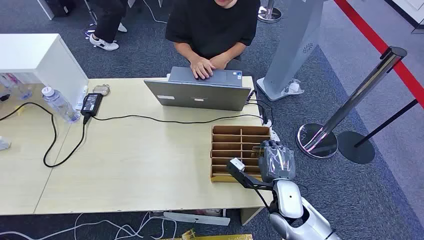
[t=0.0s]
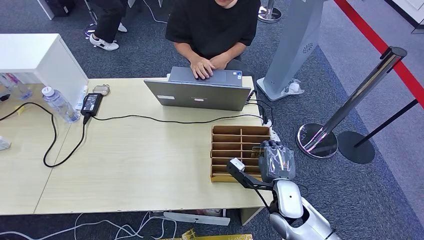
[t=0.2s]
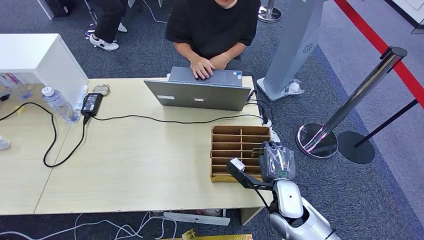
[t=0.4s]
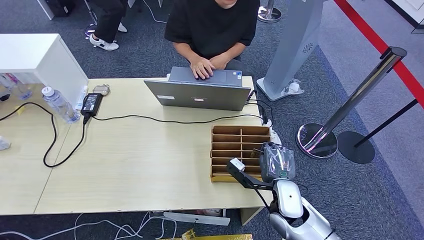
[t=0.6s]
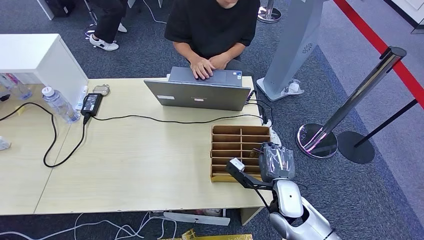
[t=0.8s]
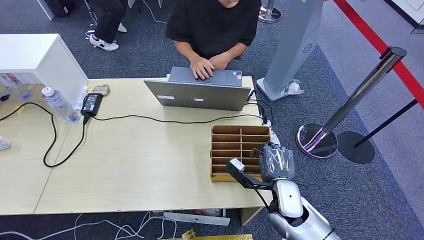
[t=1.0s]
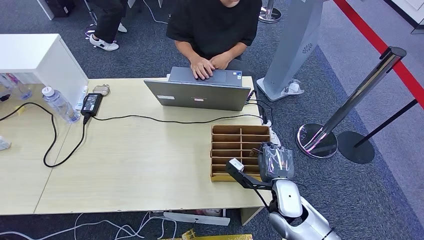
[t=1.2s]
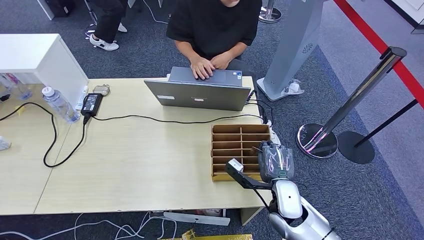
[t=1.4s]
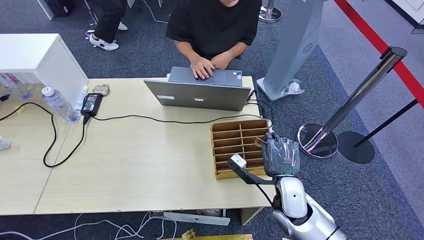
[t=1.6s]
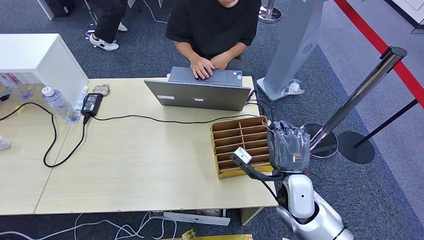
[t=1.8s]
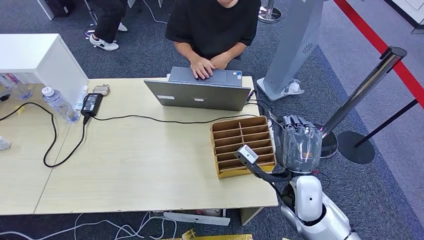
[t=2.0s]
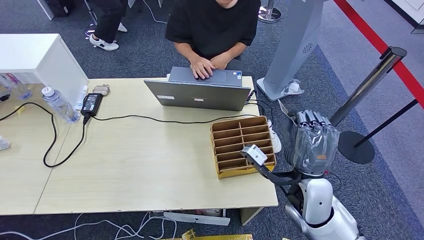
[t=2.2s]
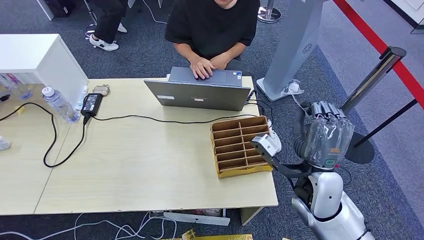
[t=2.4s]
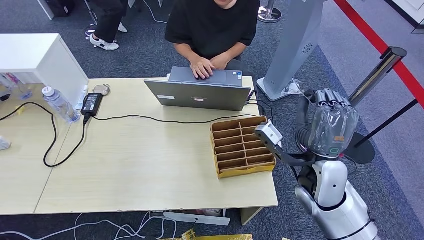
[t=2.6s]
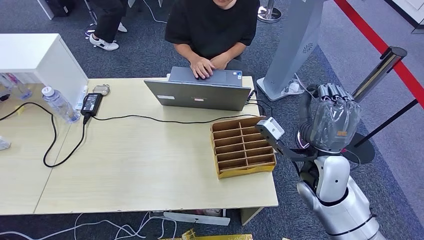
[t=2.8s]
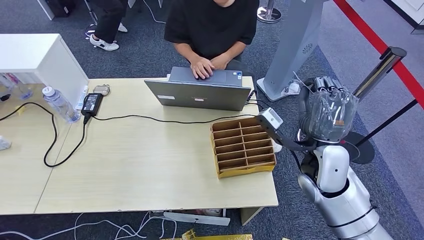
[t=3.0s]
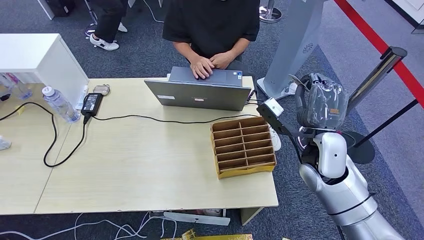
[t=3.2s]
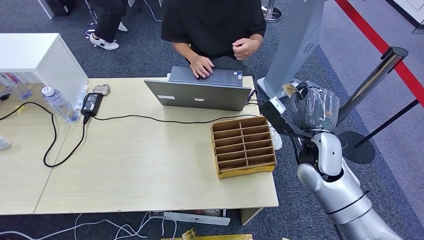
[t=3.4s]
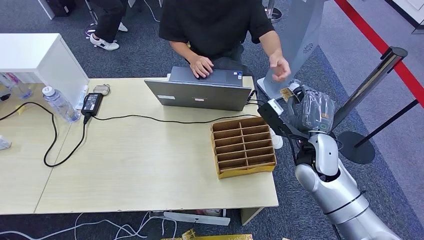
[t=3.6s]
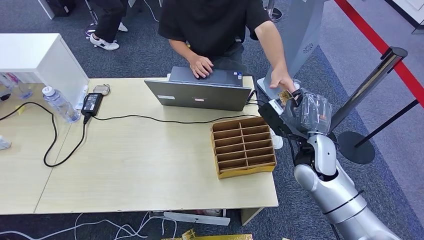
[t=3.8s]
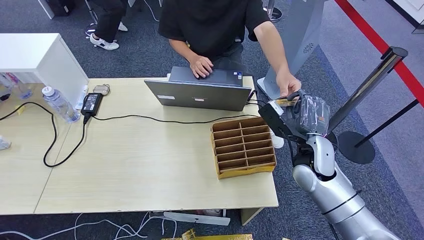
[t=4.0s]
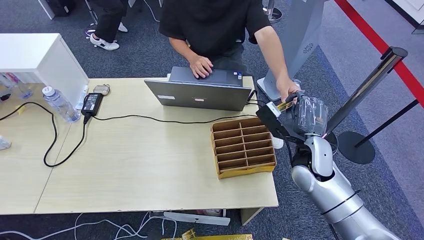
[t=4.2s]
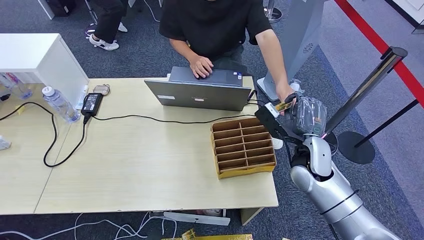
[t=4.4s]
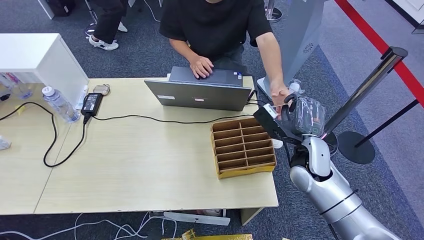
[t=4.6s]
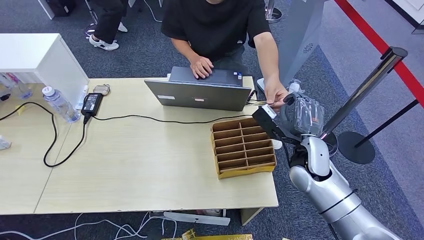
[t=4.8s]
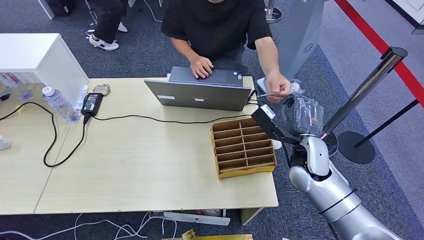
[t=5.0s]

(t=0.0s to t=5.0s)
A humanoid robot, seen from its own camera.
Step, t=0.0s - t=3.4s: Pick up the room card from the card holder.
Step, t=3.6s - t=5.0s: Hand the room card to the target.
t=1.6s - t=3.4s: The right hand goes approximately 15 cm upward, forward and to the right.
t=3.4s - t=5.0s: The hands stay close to where they were, moving slightly.
